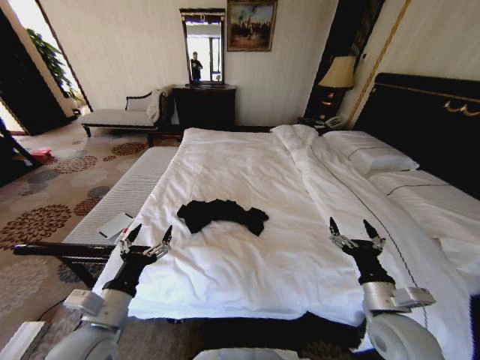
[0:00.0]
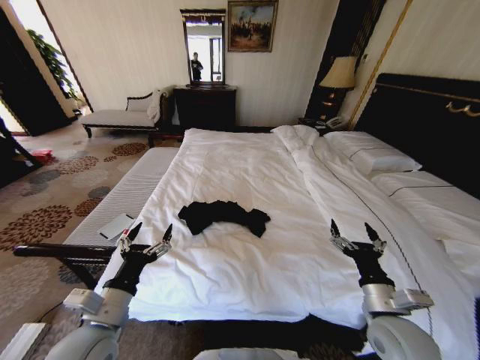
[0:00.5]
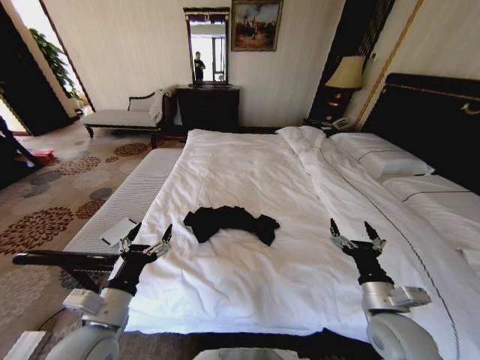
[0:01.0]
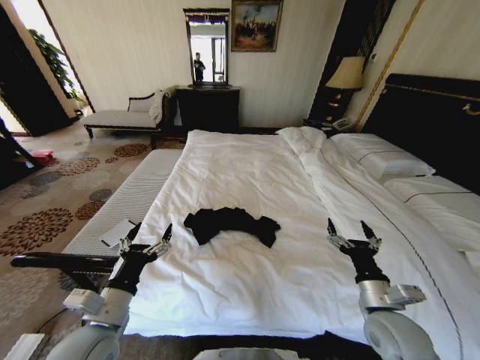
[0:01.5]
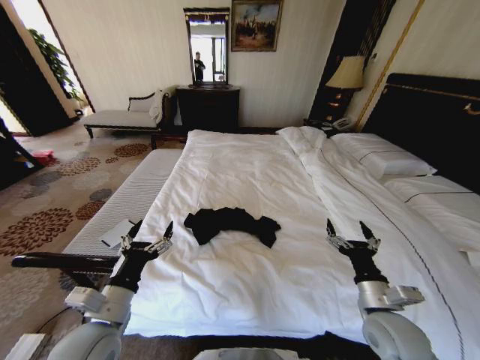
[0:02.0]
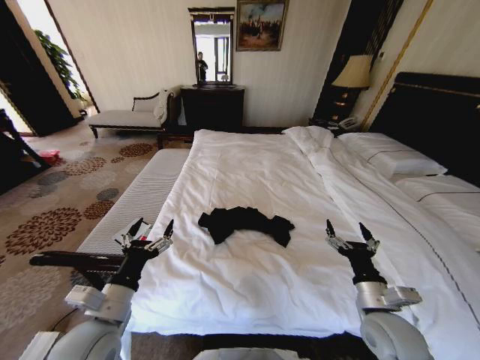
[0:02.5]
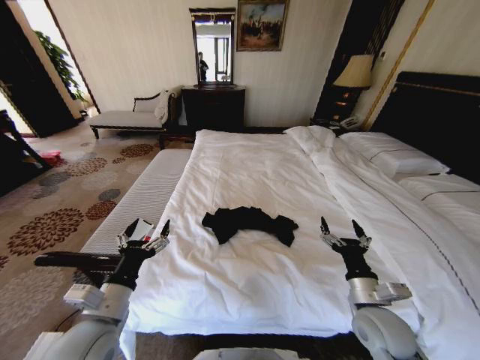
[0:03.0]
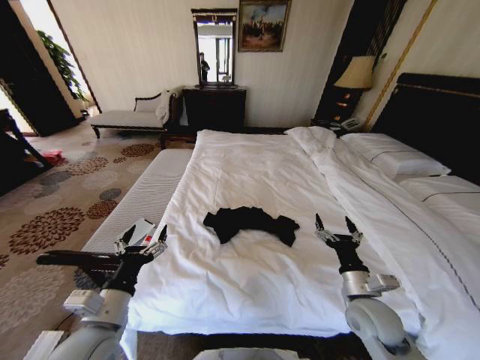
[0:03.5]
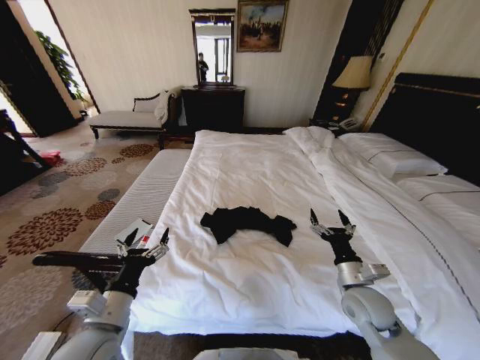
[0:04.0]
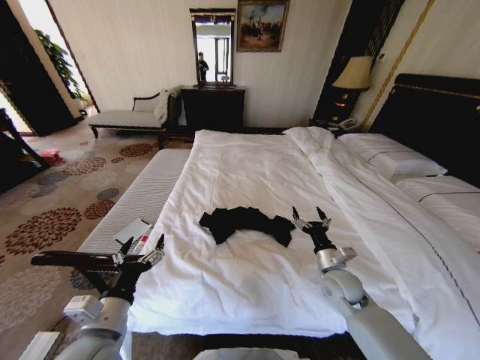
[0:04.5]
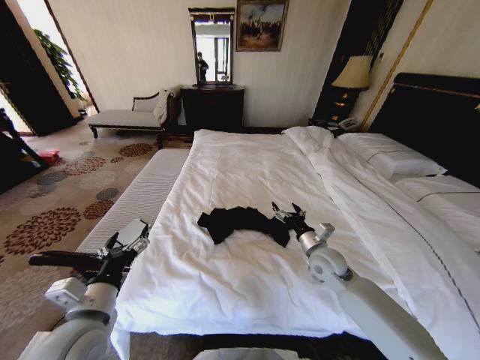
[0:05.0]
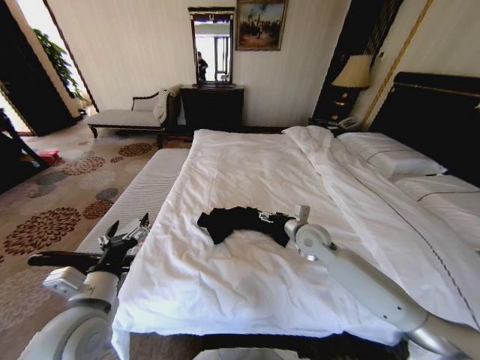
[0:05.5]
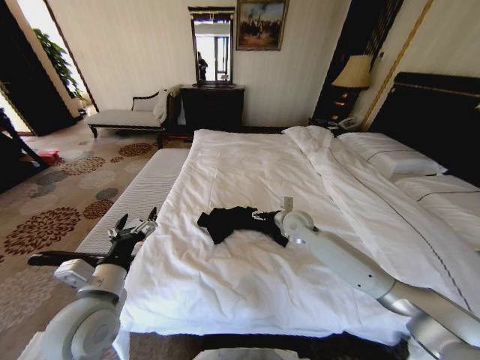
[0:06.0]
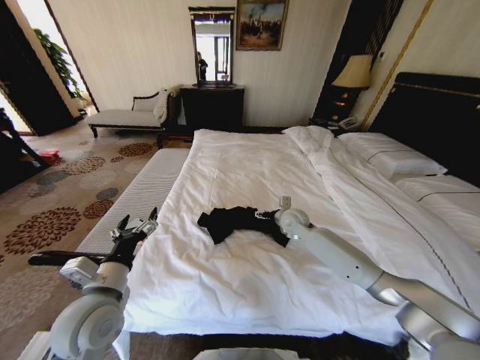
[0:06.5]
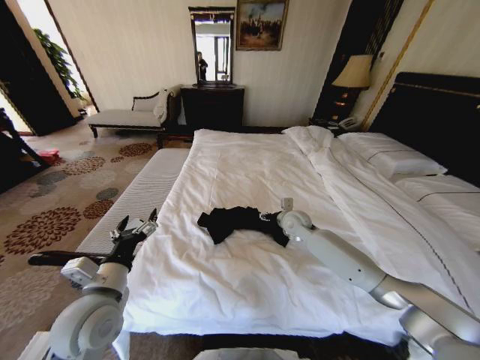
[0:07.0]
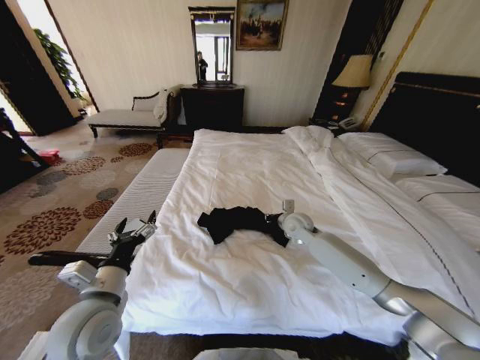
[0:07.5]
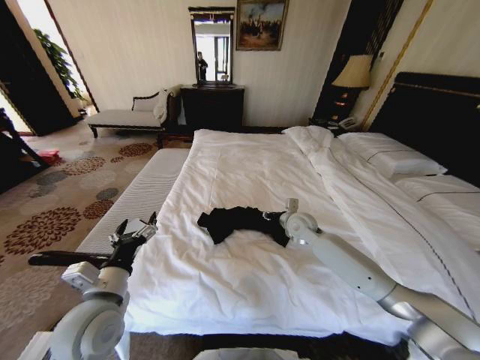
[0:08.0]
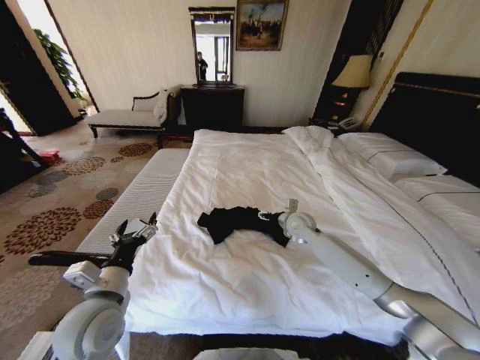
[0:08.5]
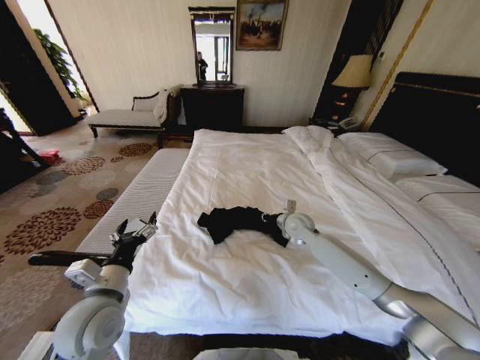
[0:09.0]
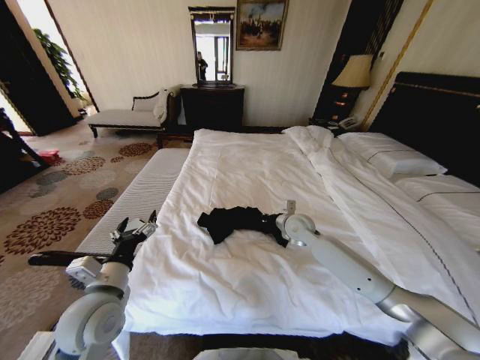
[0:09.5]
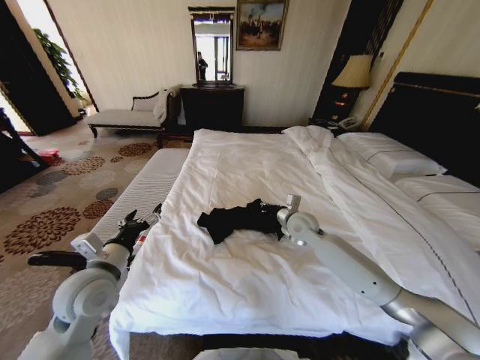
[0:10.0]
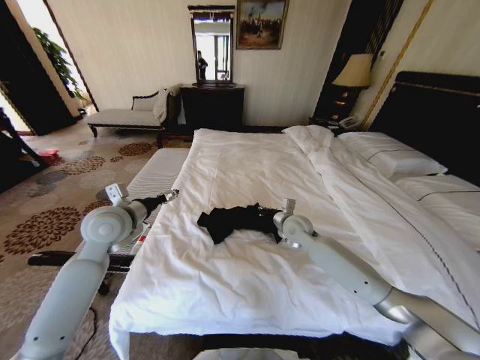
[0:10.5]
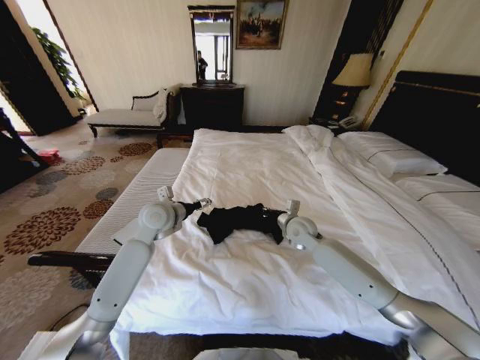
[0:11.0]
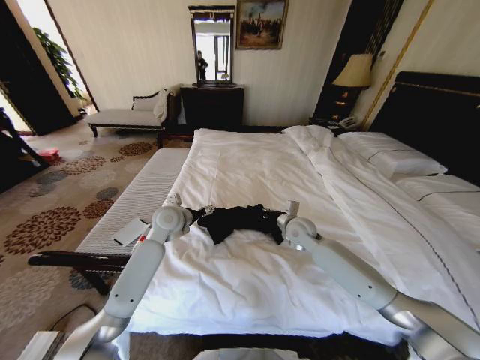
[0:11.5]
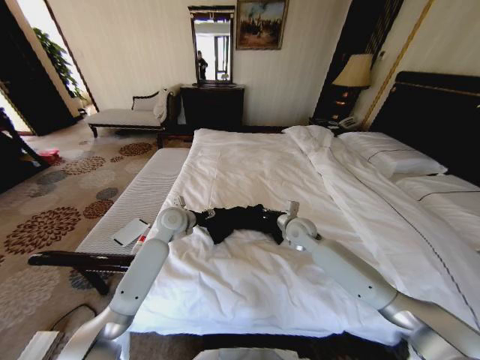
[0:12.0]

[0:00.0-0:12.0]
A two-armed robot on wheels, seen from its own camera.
Task of the whole recording: Fold the clothes on the bed.
0:02.0 to 0:04.0: The right gripper is displaced forward by approximately 5 cm.
0:04.0 to 0:06.0: The right gripper travels forward and to the left by roughly 25 cm; the left gripper changes place by roughly 5 cm.
0:06.0 to 0:08.0: The right gripper closes up.
0:08.0 to 0:10.0: The left gripper shifts about 5 cm forward, while the right gripper closes its fingers.
0:10.0 to 0:12.0: The left gripper moves forward and to the right, approximately 25 cm.

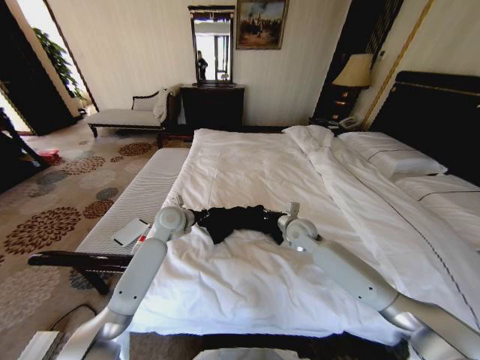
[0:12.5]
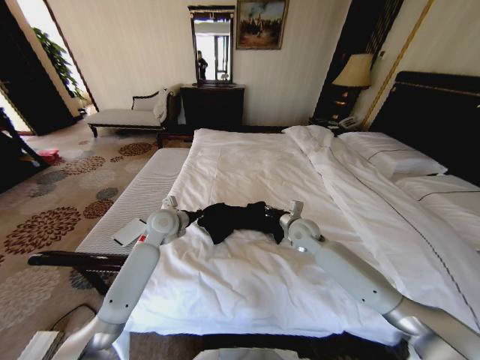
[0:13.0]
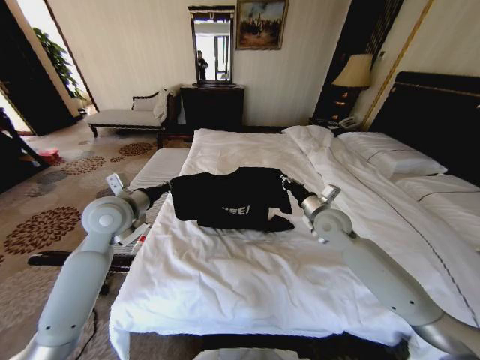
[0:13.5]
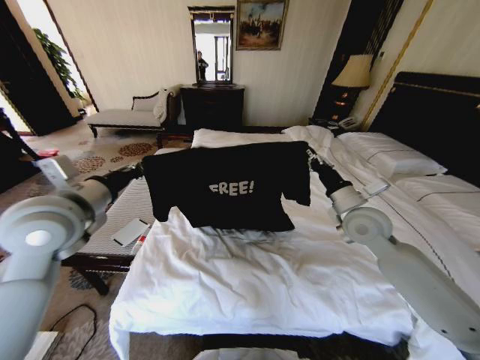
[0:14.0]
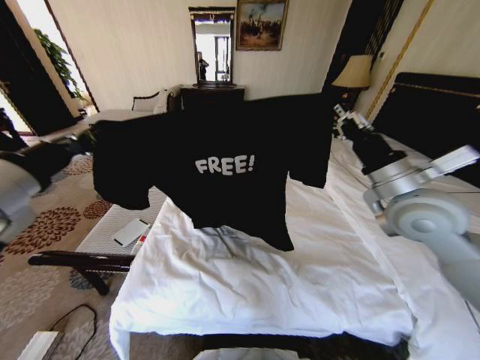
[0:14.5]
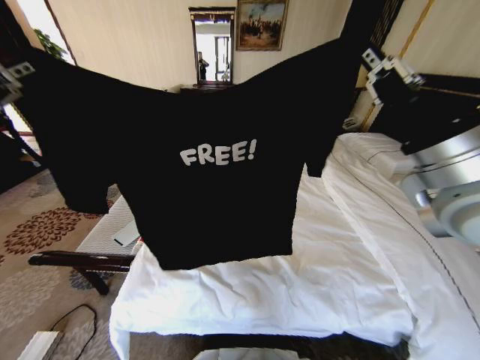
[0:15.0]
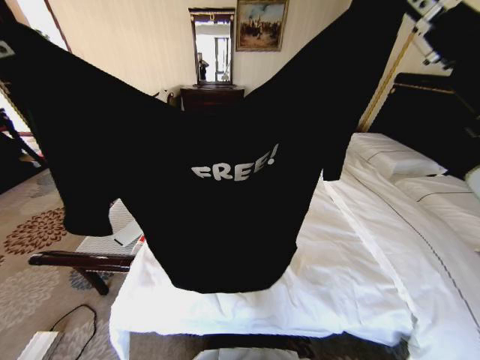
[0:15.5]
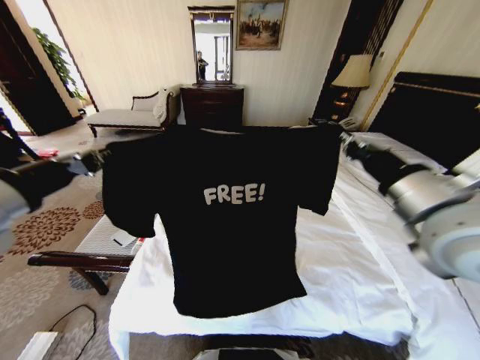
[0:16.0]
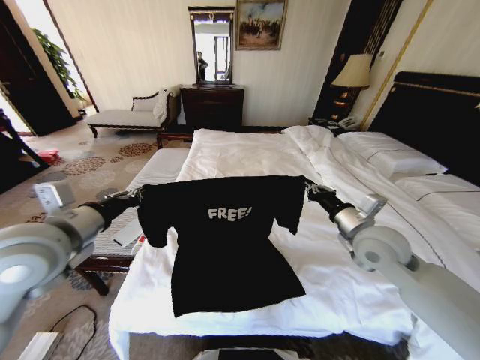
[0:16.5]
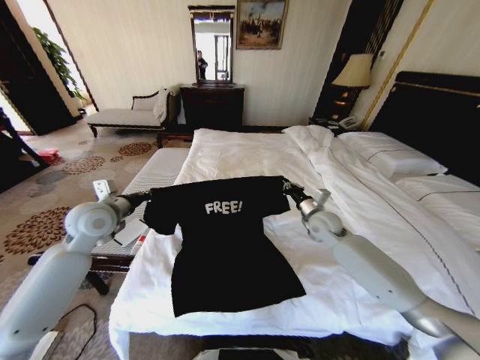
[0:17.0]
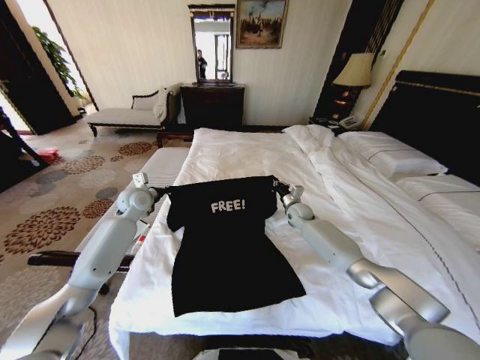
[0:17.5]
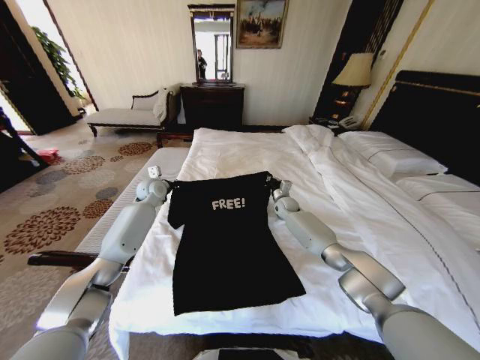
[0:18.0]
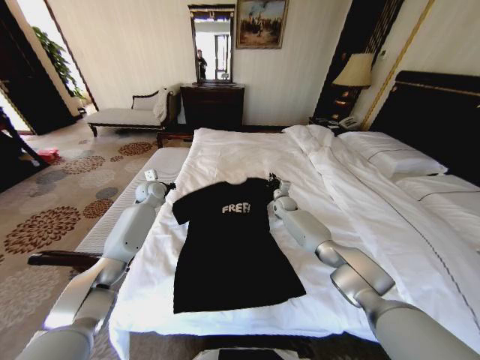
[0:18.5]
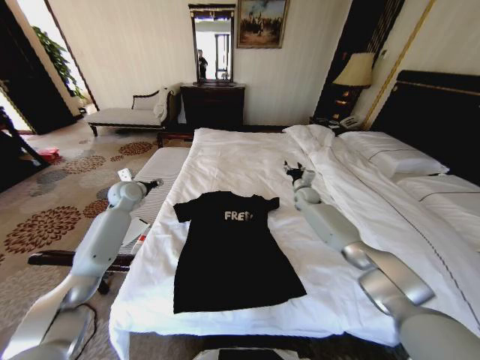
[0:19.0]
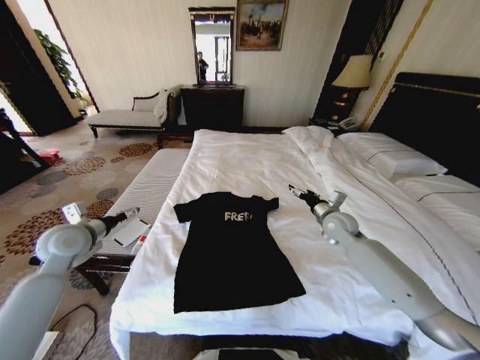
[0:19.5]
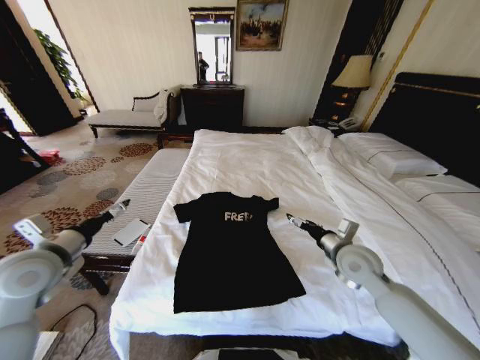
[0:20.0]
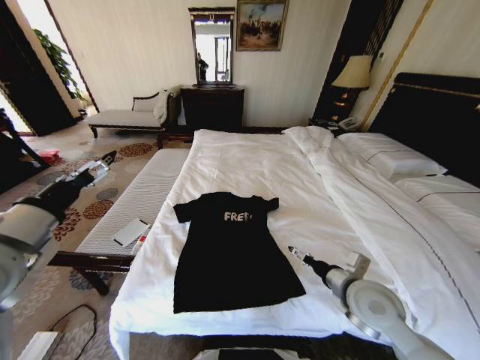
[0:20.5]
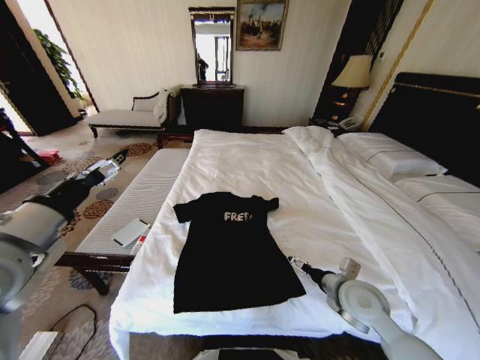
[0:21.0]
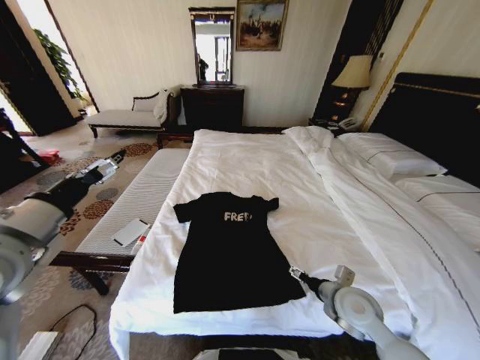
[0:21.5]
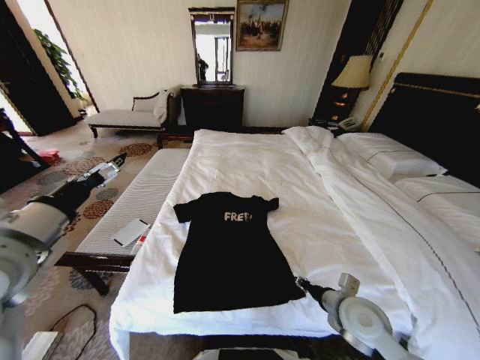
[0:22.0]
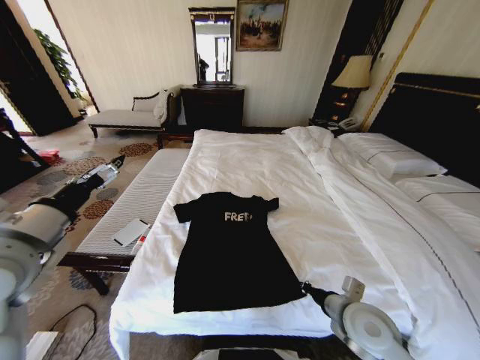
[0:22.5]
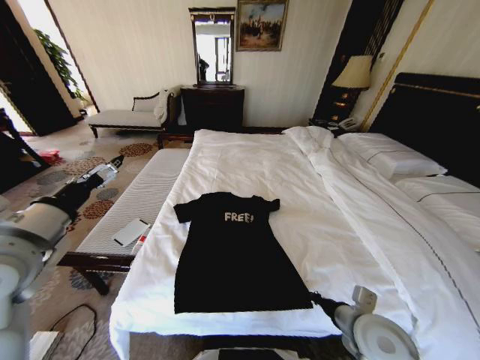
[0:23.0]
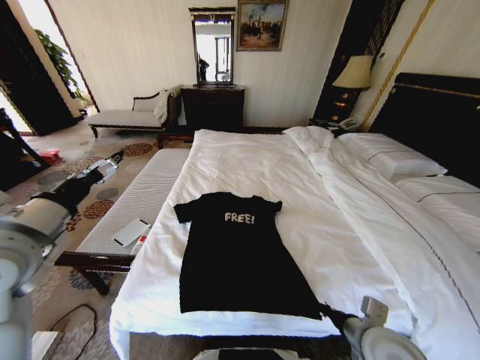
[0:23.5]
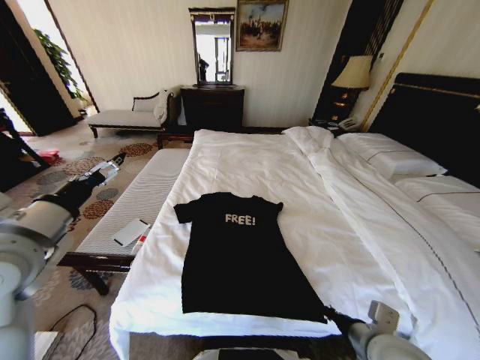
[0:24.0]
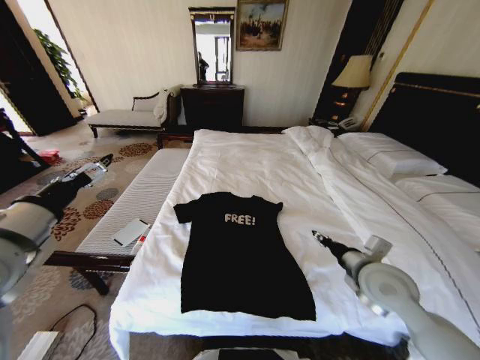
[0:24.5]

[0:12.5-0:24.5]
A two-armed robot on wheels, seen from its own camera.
Task of the whole recording: Fold the clothes on the bed.
0:12.5 to 0:14.5: The right gripper shifts approximately 30 cm upward and backward. Meanwhile the left gripper heads upward, backward and to the left, covering roughly 40 cm.
0:14.5 to 0:16.5: Both grippers travel together downward, some 10 cm.
0:16.5 to 0:18.5: The two grippers go roughly 35 cm forward and downward.
0:18.5 to 0:20.5: The right gripper is displaced backward by roughly 40 cm, and opens its fingers. The left gripper travels backward and upward by roughly 40 cm, and opens up.
0:20.5 to 0:22.5: The right gripper shifts by some 5 cm, and closes.
0:22.5 to 0:24.5: The right gripper goes approximately 10 cm upward and forward, and opens.

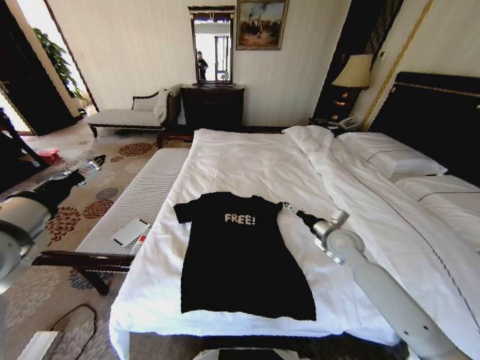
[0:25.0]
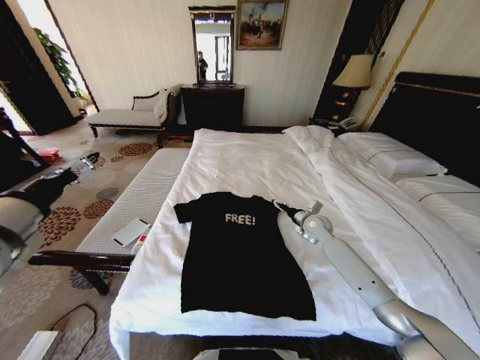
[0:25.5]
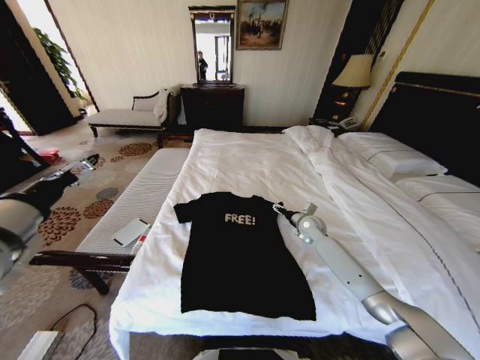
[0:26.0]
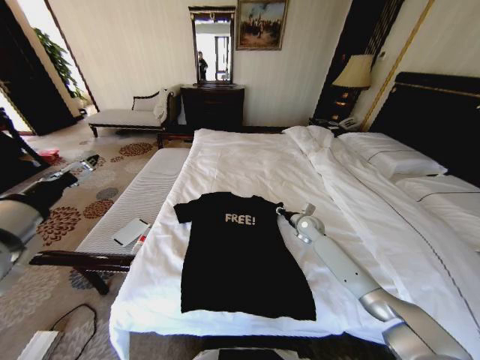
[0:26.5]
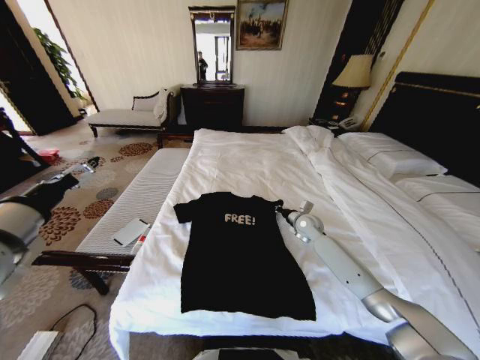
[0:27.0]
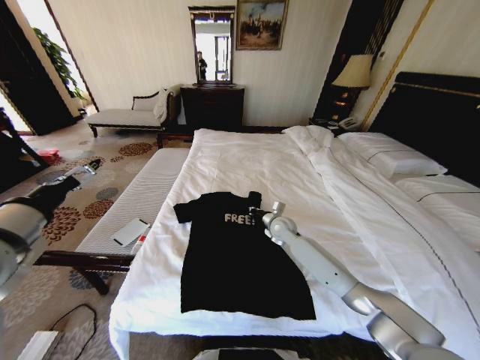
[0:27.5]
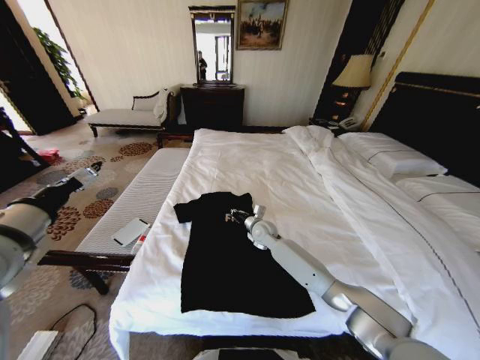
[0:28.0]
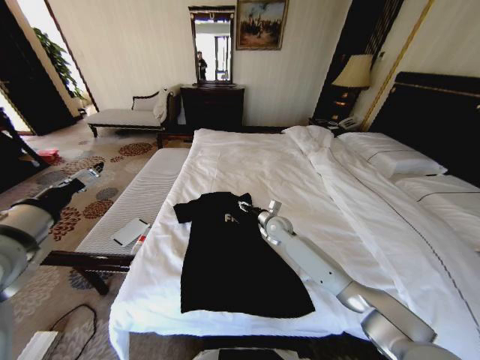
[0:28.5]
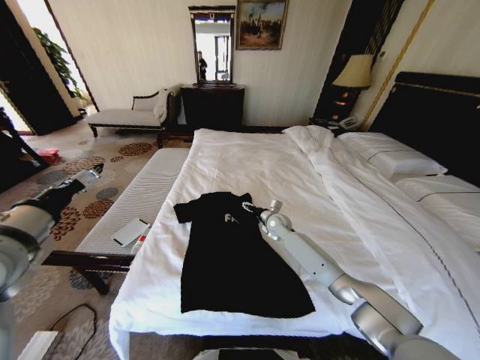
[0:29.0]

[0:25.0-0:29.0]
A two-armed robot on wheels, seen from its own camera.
Task of the whole recording: Fold the clothes on the bed.
0:25.0 to 0:27.0: The right gripper travels forward and downward by some 15 cm, and closes up.
0:27.0 to 0:29.0: The right gripper goes some 10 cm to the left, and opens up.
